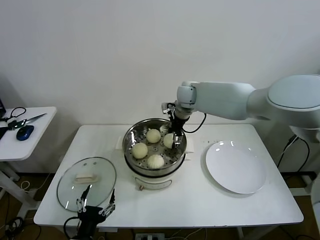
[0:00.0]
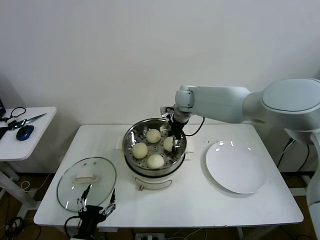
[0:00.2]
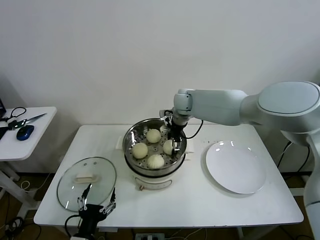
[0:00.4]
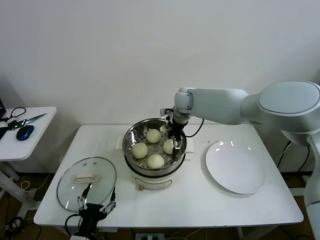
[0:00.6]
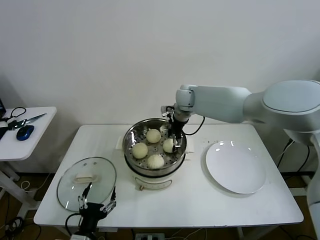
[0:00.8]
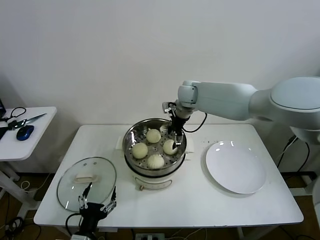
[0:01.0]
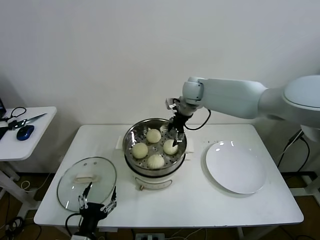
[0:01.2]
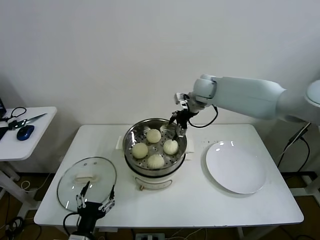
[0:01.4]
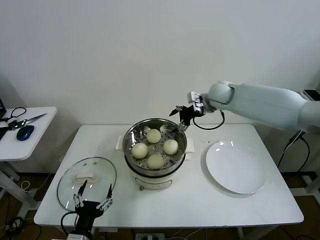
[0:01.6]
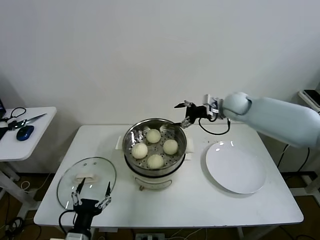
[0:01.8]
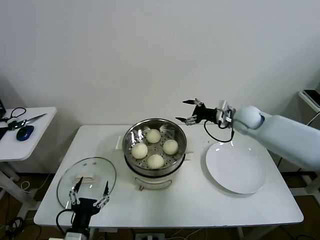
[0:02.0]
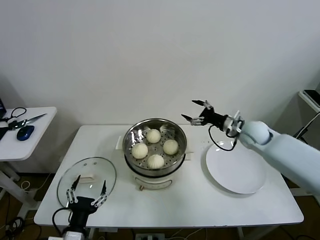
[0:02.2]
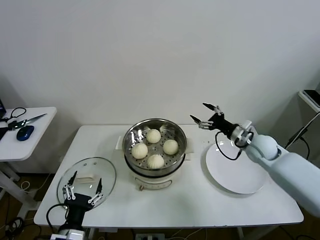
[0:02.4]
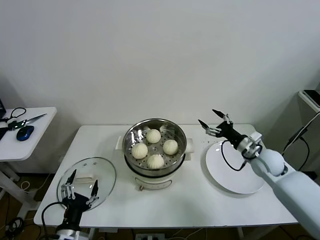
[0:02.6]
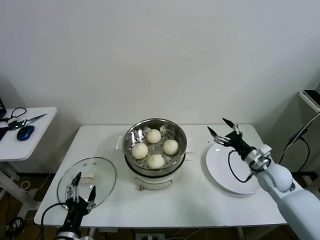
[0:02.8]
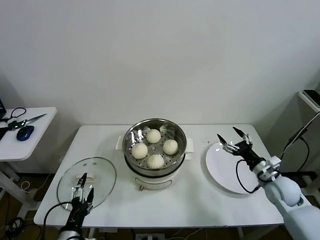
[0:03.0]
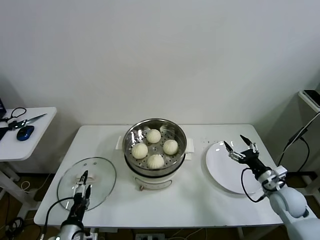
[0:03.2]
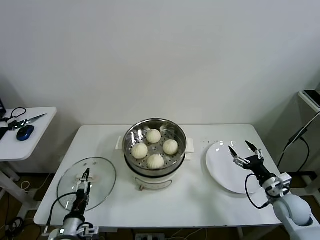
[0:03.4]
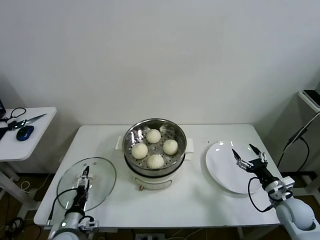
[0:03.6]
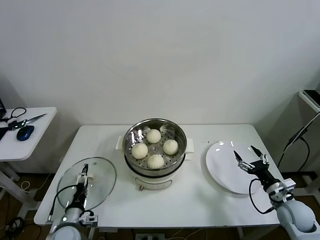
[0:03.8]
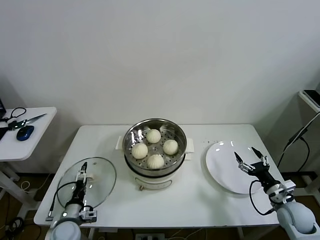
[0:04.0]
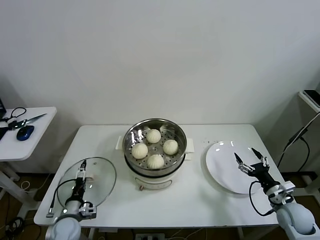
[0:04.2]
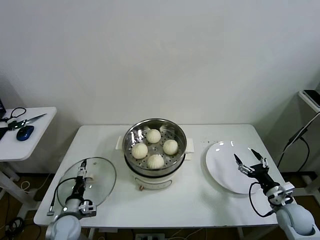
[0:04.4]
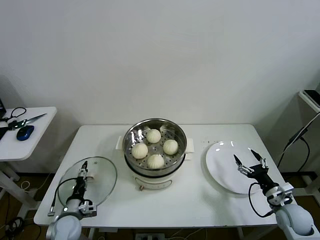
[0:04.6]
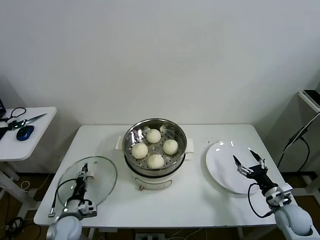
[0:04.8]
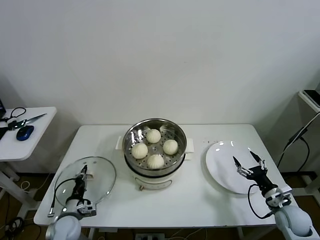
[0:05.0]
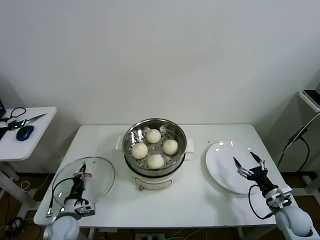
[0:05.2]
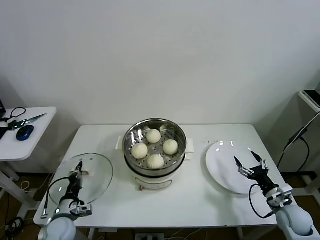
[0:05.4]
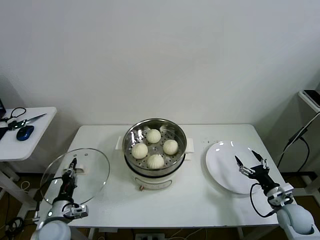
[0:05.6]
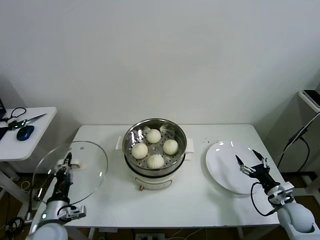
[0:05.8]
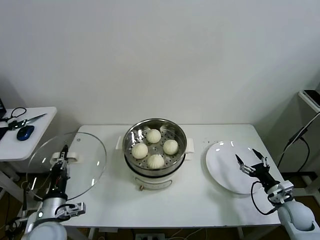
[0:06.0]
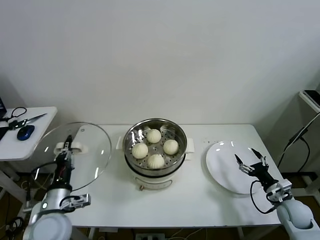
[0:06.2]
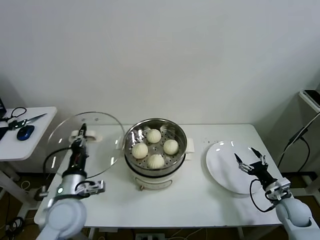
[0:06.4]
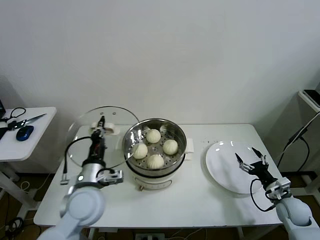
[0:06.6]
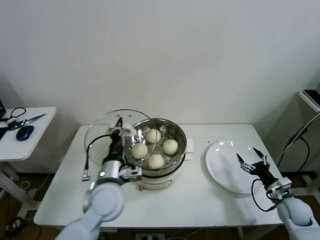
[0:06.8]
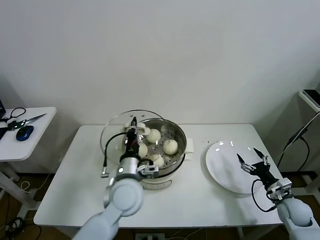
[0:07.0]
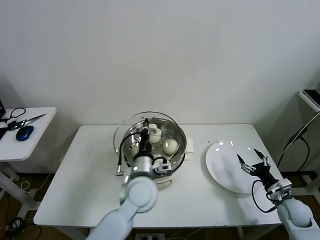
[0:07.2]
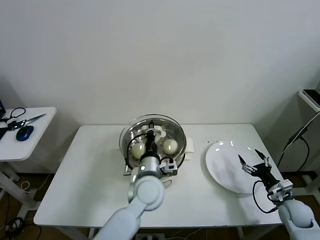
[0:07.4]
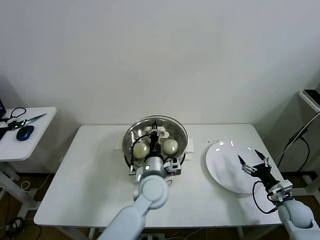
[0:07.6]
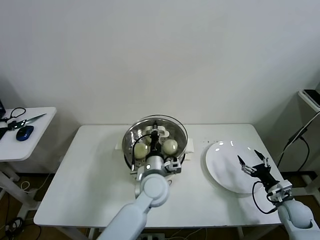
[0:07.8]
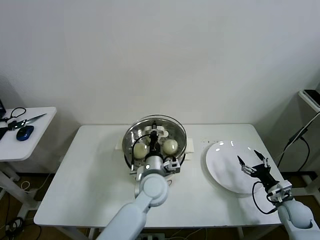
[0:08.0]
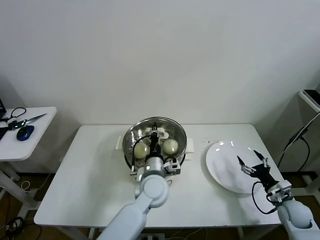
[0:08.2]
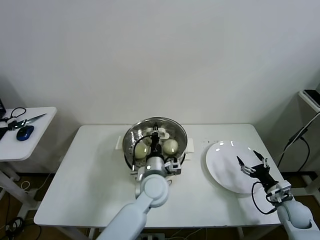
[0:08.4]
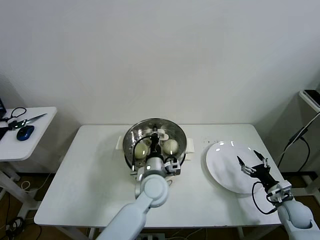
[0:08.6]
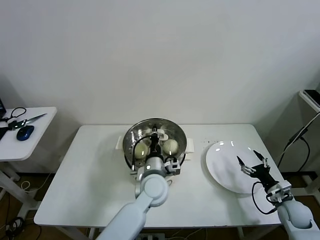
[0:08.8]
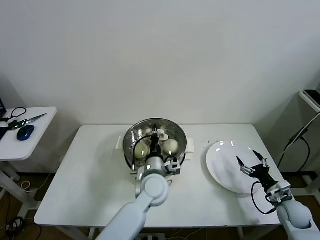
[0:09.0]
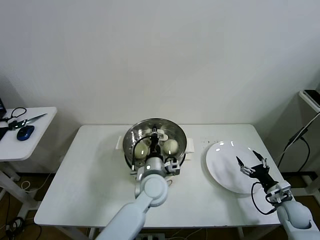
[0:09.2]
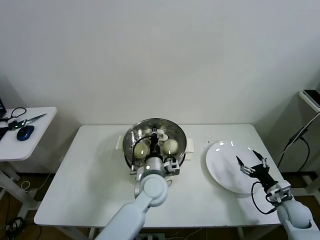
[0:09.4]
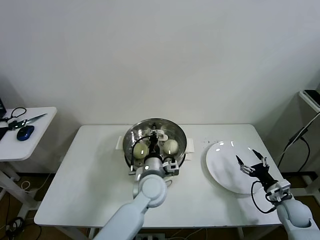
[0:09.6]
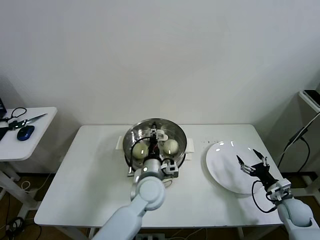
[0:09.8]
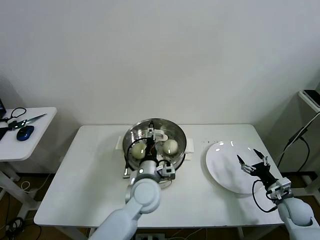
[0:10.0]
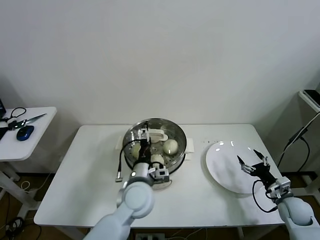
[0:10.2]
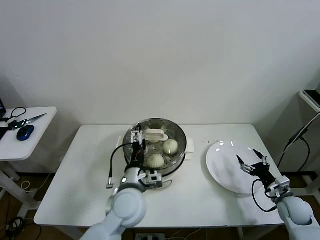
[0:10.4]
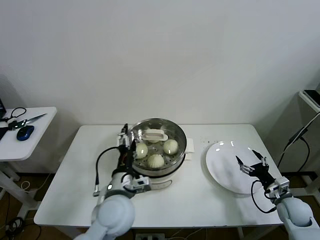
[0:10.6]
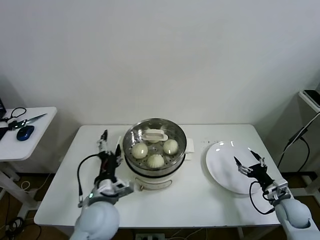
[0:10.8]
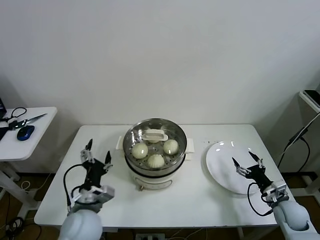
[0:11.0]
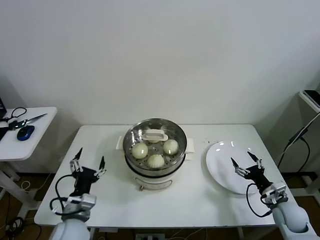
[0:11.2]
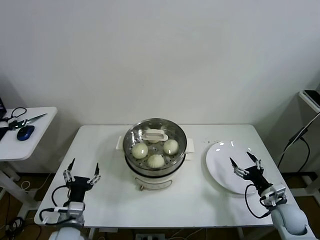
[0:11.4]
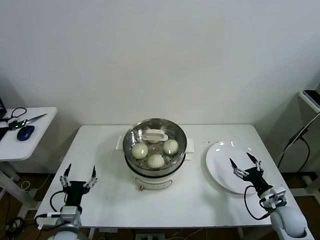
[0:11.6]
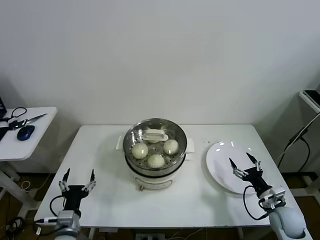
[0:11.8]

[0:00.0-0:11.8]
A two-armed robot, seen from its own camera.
Task of the whole recording: take steamed baozi put them in steamer then cover it.
Step, 0:00.8 to 0:05.0: Grasp the pot lid with left gripper.
Step, 0:05.2 to 0:09.6: Place the pot lid on the steamer with left gripper.
0:00.0 to 0:01.4: The right gripper shifts roughly 5 cm to the right, and opens.
0:01.4 to 0:03.0: The right gripper goes some 40 cm backward, downward and to the right.
0:03.0 to 0:04.4: The left gripper goes about 20 cm forward, downward and to the left, while the right gripper shifts approximately 10 cm backward and downward.
0:04.4 to 0:06.0: The left gripper goes roughly 15 cm upward and backward, and closes.
0:06.0 to 0:07.4: The left gripper heads to the right and forward, covering about 30 cm.
0:07.4 to 0:08.8: The grippers move only a little.
0:08.8 to 0:10.4: The left gripper moves to the left and backward, roughly 10 cm, and opens.
0:10.4 to 0:11.8: The left gripper shifts roughly 25 cm to the left, downward and backward. Meanwhile the right gripper ends up some 5 cm from where it was.
